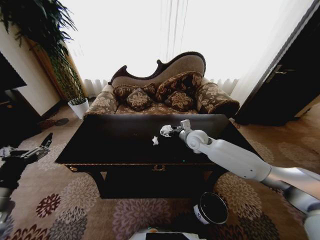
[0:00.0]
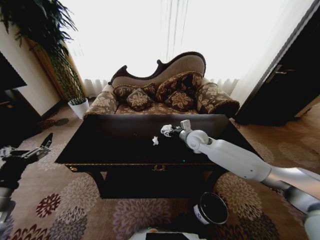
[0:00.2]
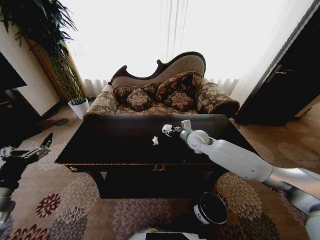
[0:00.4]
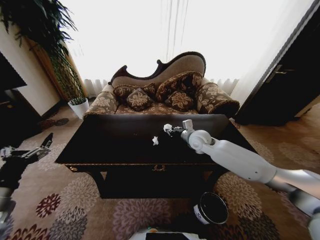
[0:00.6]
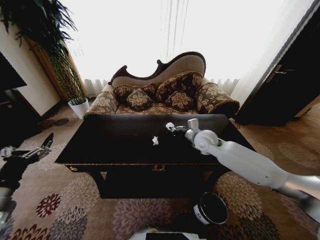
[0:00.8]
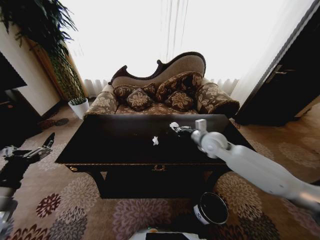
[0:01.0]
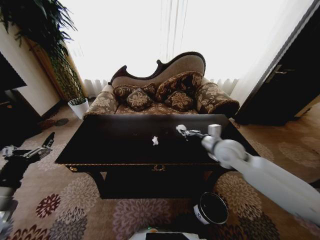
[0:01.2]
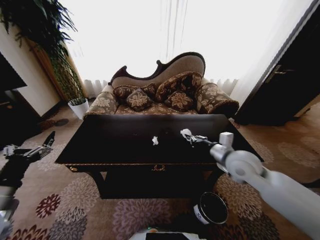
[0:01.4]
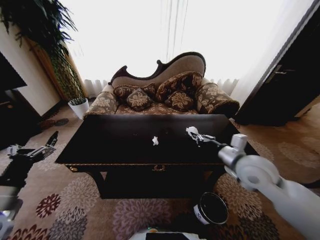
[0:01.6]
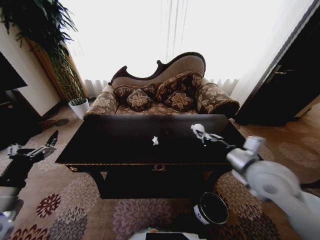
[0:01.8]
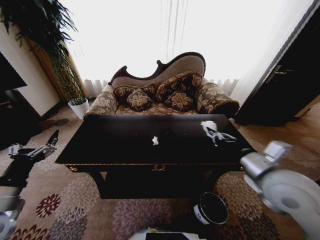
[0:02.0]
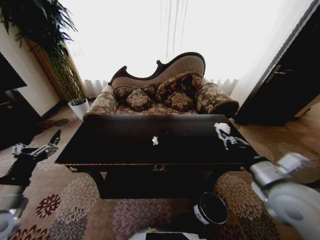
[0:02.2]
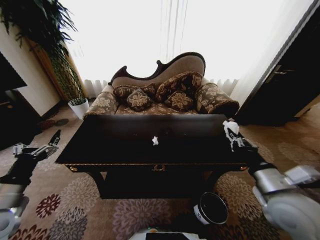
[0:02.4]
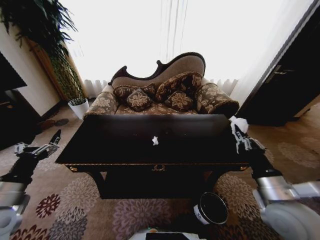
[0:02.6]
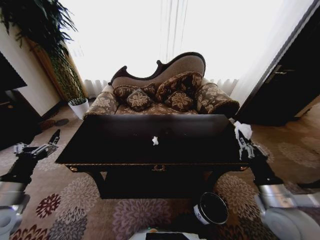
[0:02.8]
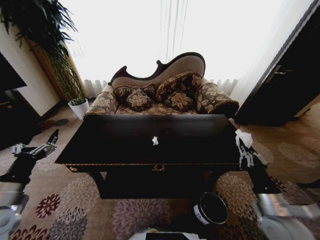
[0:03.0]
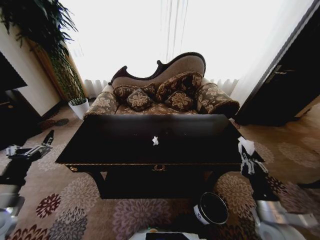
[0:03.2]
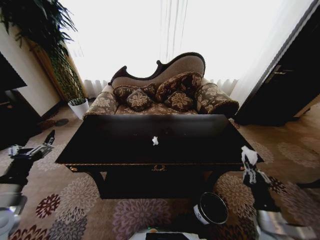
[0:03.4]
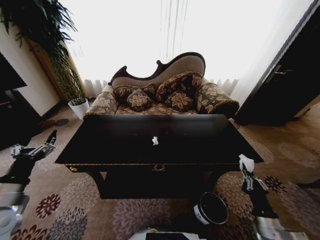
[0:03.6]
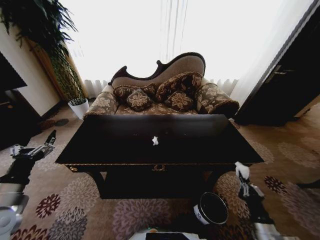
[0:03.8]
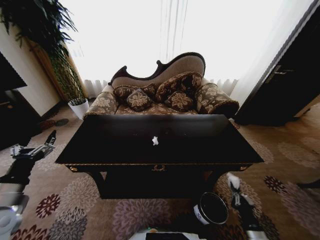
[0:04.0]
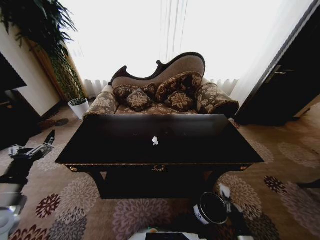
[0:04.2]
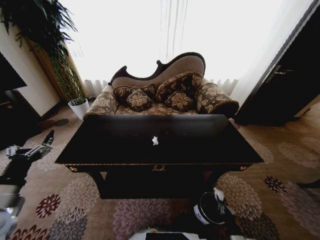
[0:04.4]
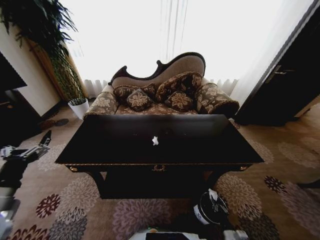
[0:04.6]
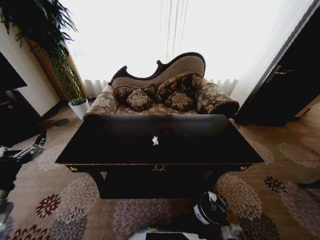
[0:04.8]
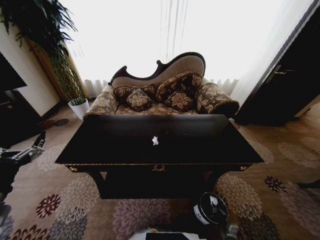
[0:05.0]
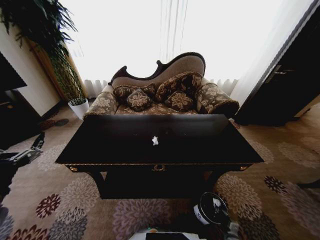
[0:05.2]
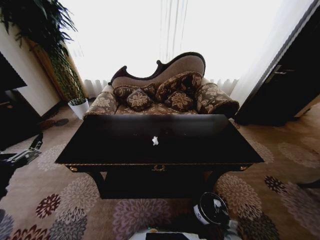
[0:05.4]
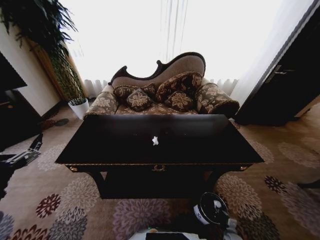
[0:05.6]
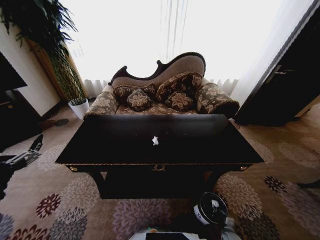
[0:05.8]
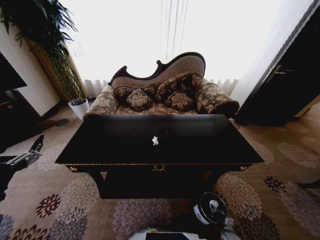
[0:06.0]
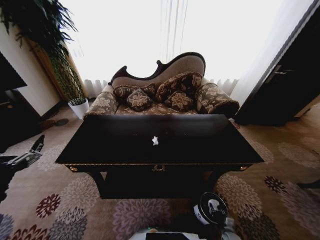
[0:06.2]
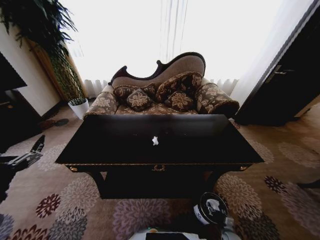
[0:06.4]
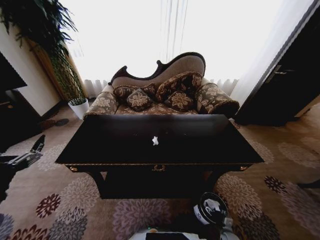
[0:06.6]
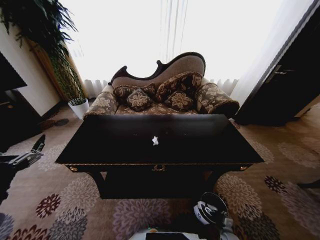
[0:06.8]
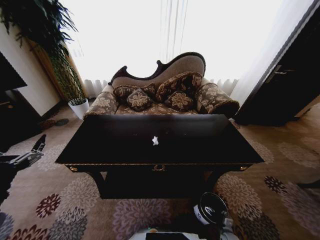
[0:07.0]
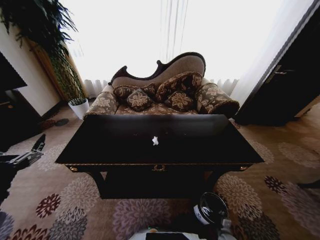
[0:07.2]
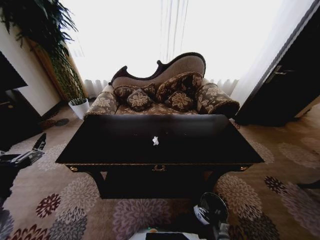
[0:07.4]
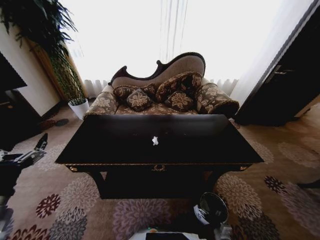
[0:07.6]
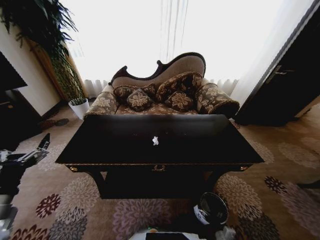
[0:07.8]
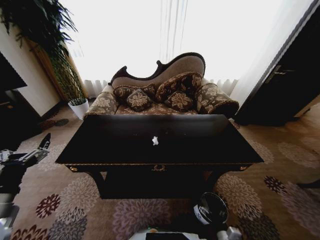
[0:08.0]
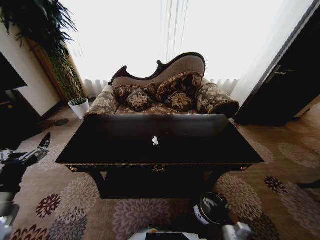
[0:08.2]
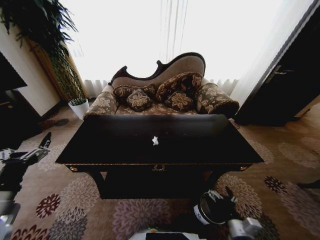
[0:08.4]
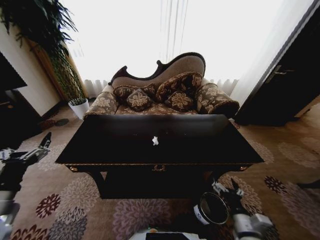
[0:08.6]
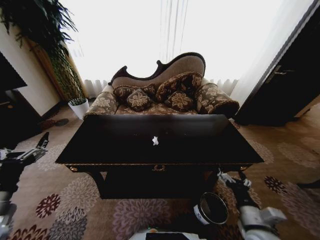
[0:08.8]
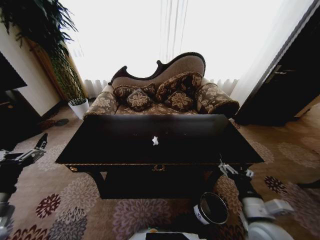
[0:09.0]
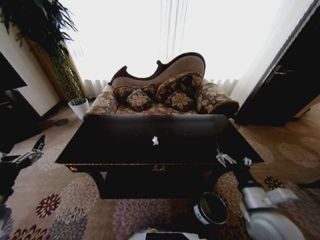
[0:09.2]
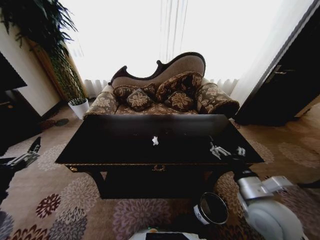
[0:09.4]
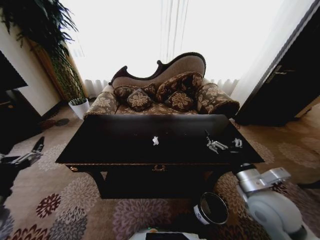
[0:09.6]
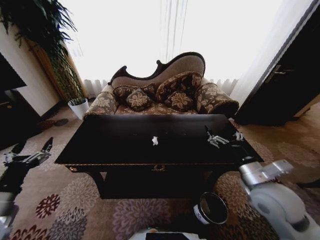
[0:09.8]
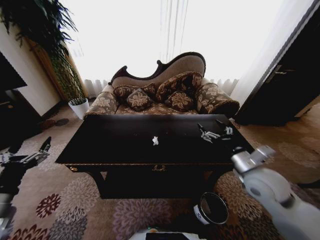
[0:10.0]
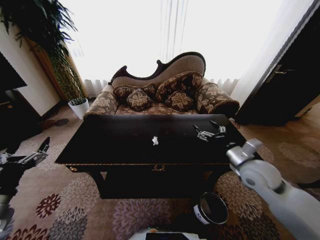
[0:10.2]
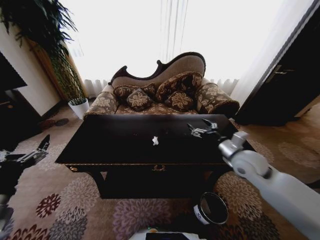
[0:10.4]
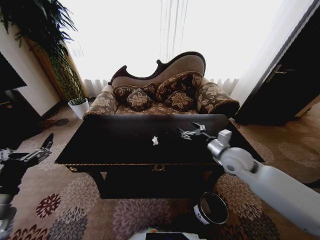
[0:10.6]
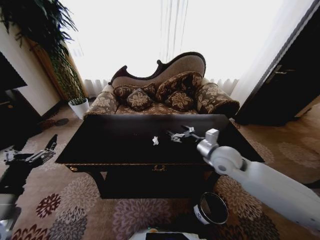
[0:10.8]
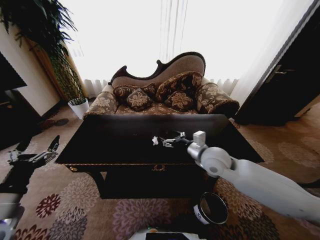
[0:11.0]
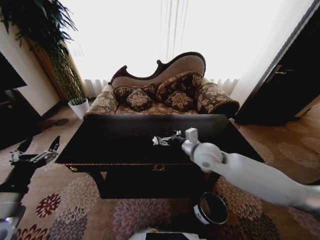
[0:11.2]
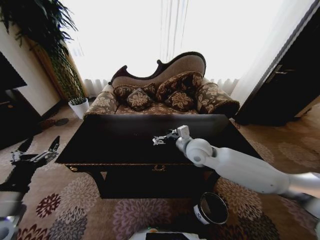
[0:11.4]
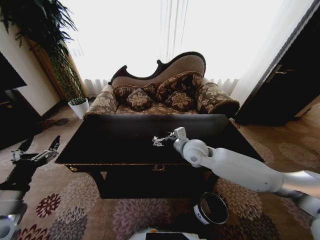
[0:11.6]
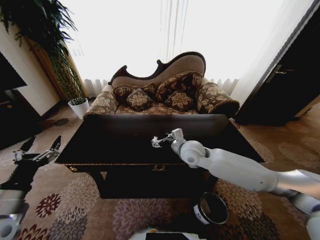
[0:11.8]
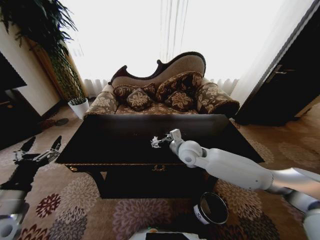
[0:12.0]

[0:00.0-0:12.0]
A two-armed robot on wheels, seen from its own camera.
Task of the whole recording: Move to the front of the table and place the trash on the table into the trash bin.
0:00.0 to 0:01.6: The right gripper moves backward and to the right, roughly 20 cm, and closes its fingers.
0:01.6 to 0:03.0: The right gripper travels backward, downward and to the right by some 20 cm.
0:03.0 to 0:04.4: The right gripper travels downward by roughly 25 cm.
0:04.4 to 0:06.0: The left gripper shifts by roughly 5 cm, while the right gripper is displaced downward and forward by approximately 15 cm.
0:07.6 to 0:09.0: The right gripper travels upward by roughly 30 cm.
0:09.0 to 0:10.4: The right gripper travels forward and upward by about 20 cm.
0:10.4 to 0:12.0: The right gripper is displaced to the left by roughly 20 cm.

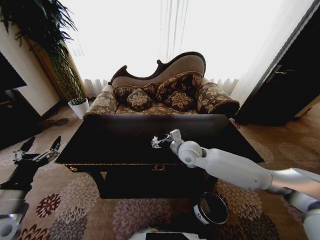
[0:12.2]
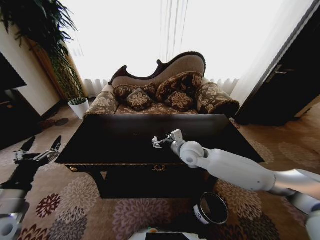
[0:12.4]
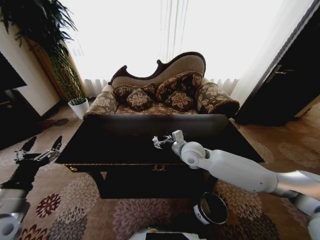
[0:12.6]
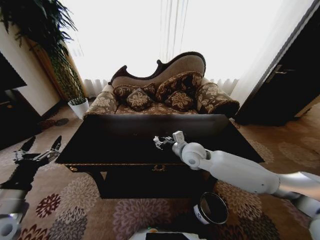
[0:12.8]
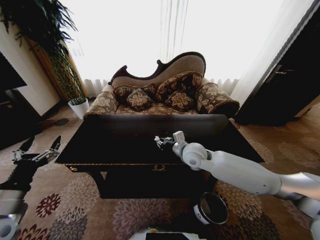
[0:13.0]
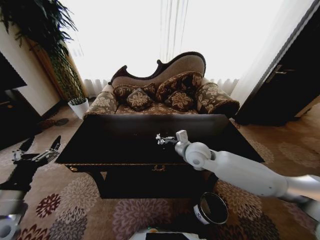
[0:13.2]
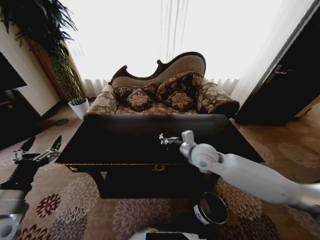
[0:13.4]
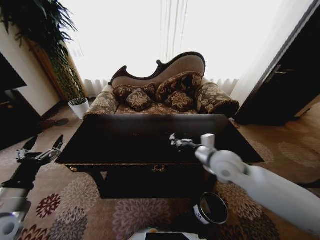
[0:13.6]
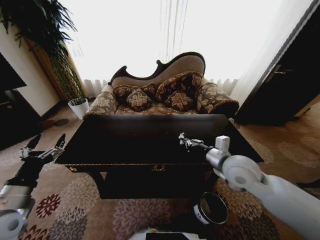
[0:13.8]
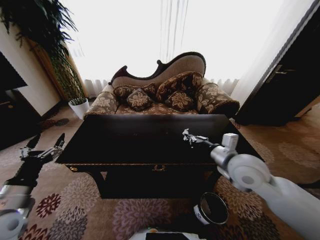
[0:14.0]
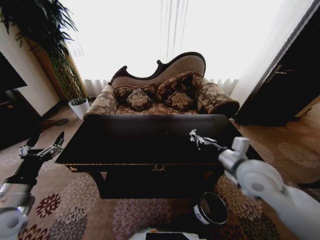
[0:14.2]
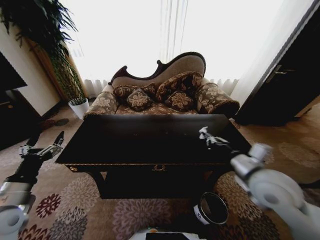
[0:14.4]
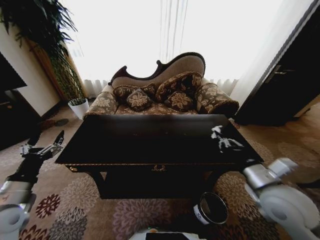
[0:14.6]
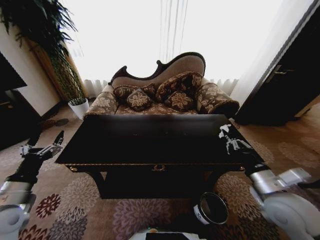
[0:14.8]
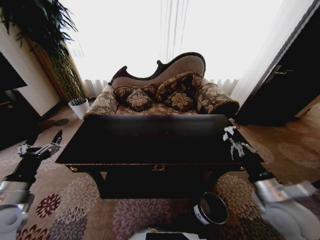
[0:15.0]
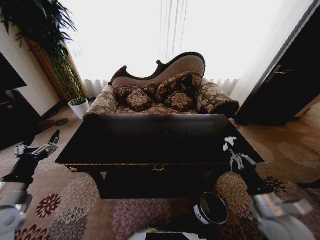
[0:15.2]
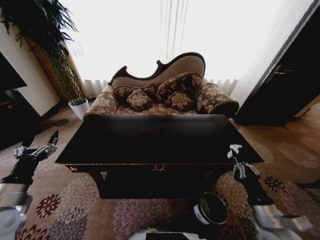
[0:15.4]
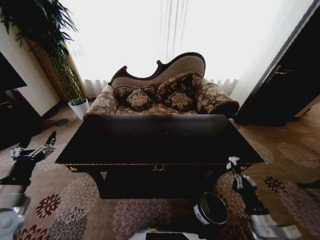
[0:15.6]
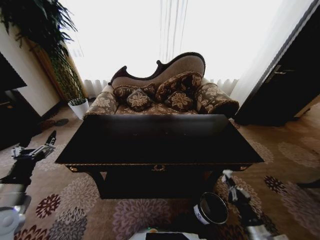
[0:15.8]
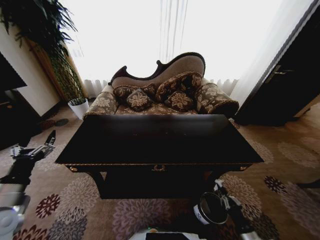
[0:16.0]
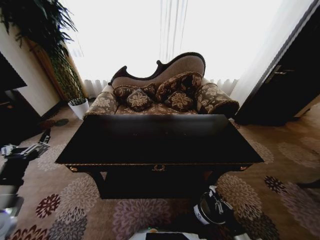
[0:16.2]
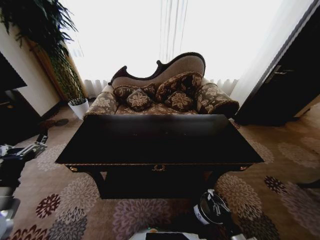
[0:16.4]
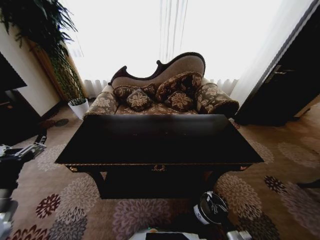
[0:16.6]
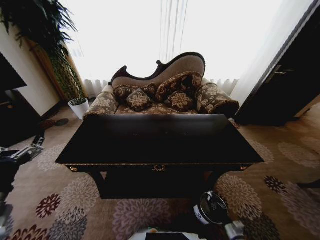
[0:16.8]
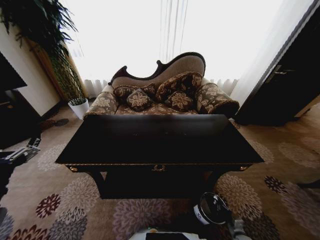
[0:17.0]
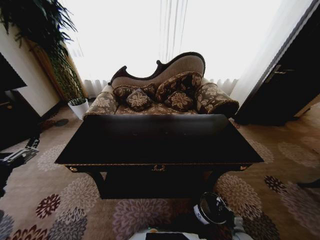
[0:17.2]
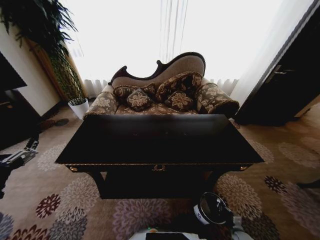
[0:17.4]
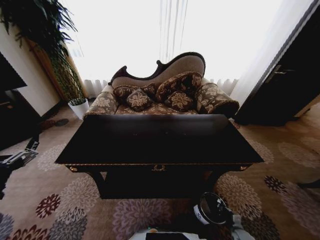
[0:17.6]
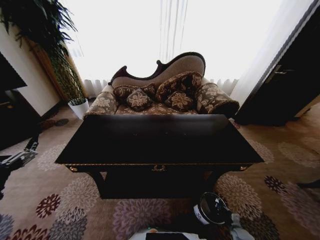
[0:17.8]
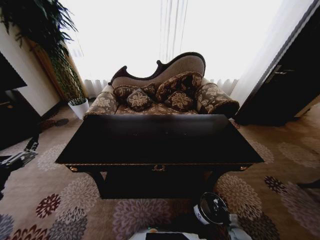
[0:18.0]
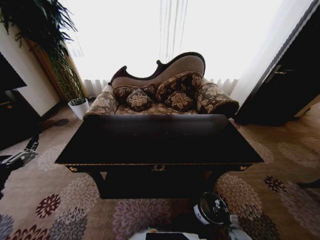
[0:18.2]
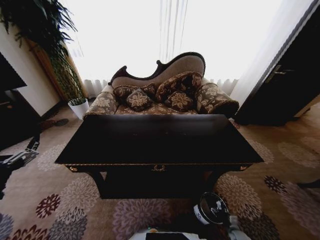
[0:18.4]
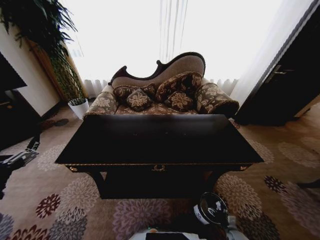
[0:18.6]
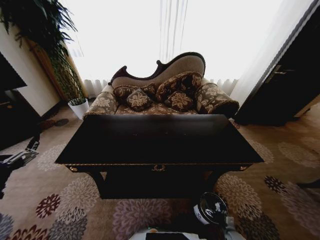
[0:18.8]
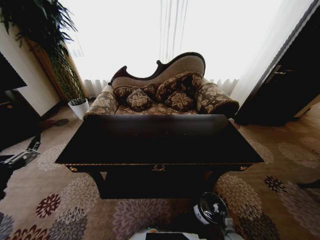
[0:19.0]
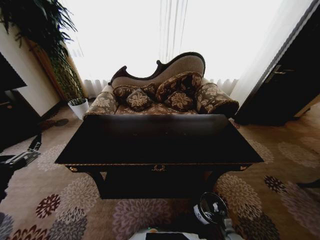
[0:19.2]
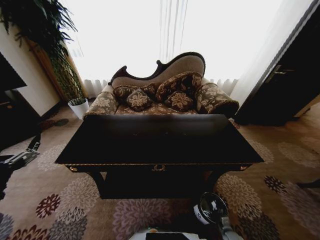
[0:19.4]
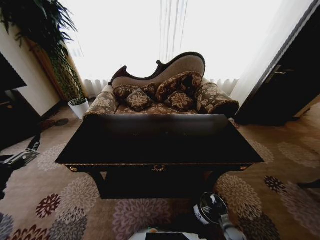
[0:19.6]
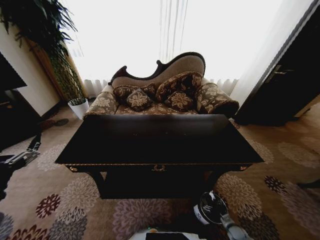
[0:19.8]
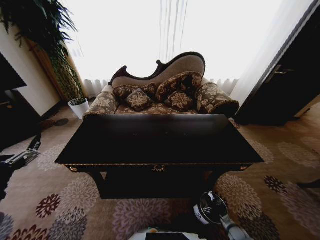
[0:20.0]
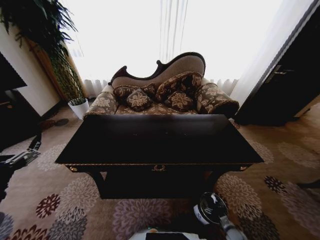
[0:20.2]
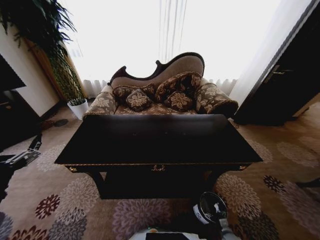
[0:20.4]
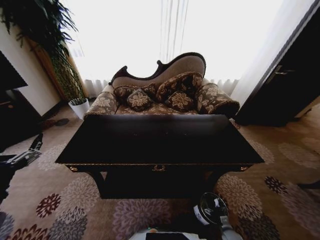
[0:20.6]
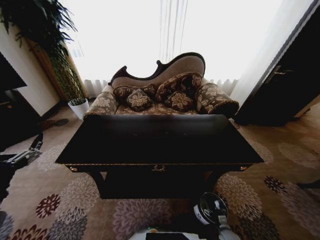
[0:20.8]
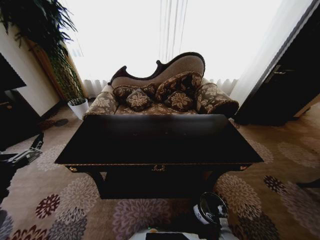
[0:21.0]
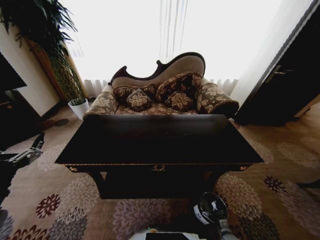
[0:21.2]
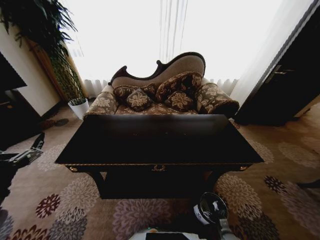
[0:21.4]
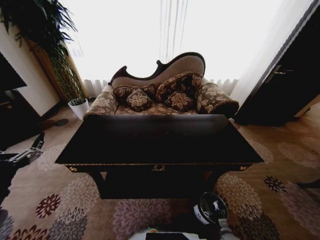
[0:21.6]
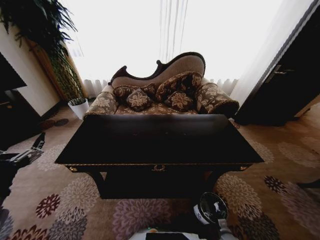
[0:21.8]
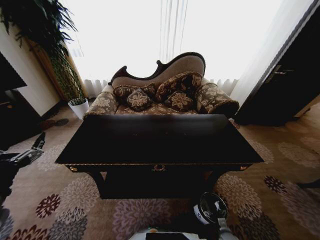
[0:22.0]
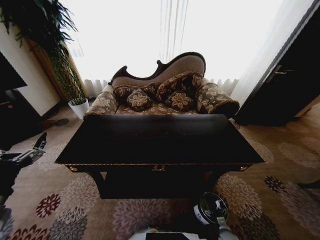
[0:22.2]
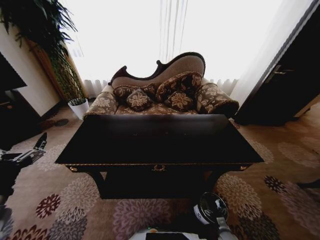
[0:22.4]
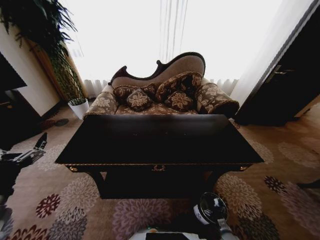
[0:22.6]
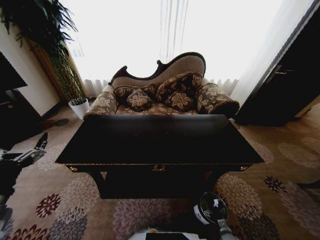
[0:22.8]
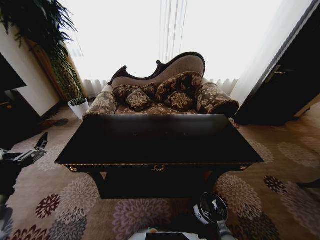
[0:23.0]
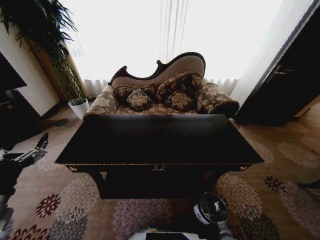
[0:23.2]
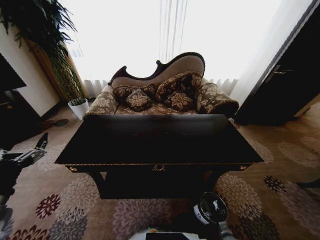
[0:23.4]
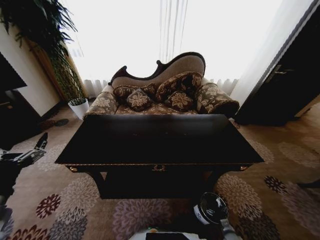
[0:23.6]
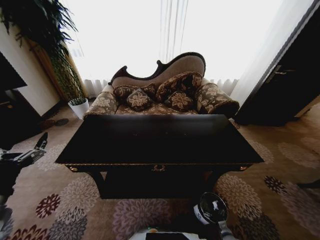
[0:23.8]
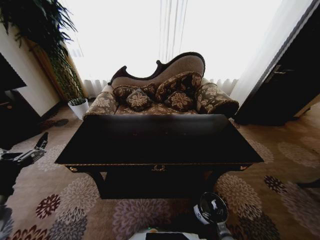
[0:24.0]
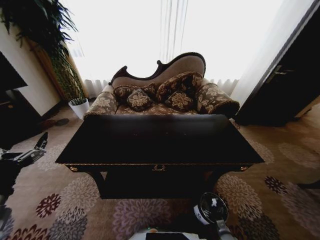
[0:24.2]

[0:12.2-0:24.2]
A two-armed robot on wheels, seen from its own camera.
Task of the whole recording: Move to the front of the table and place the trash on the table into the trash bin.
0:12.2 to 0:13.8: The right gripper travels to the right and backward by some 15 cm, and closes.
0:13.8 to 0:15.2: The right gripper travels backward, downward and to the right by roughly 20 cm.
0:15.2 to 0:16.6: The right gripper heads downward, covering roughly 30 cm.
0:19.8 to 0:21.2: The right gripper moves to the left, approximately 5 cm.
0:21.2 to 0:24.2: The grippers make only small movements.
